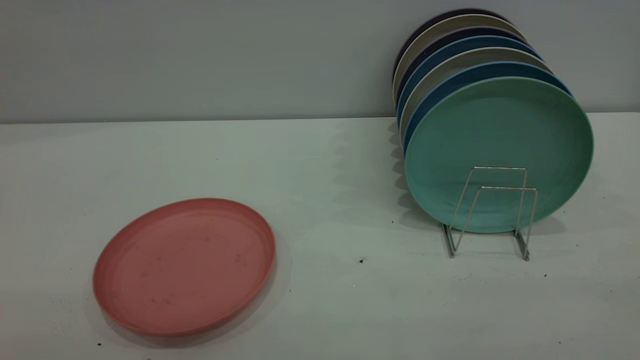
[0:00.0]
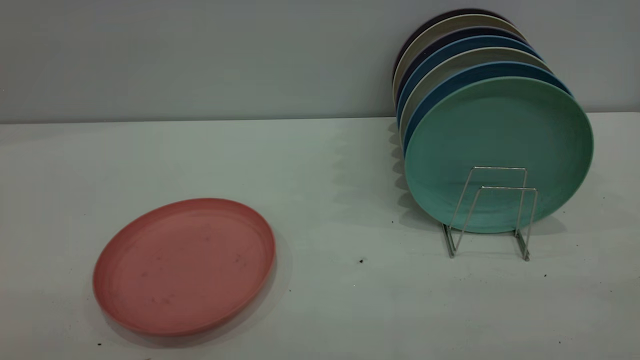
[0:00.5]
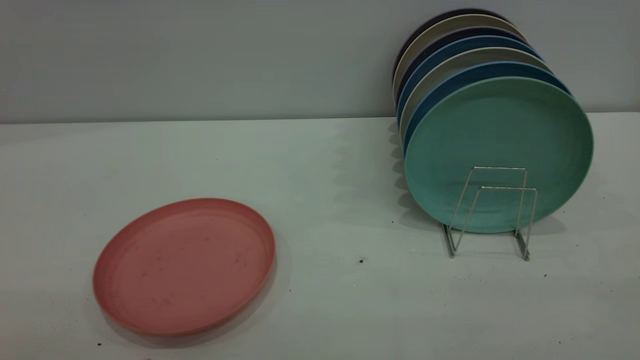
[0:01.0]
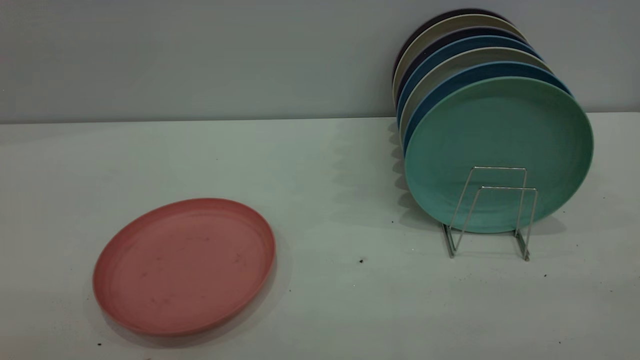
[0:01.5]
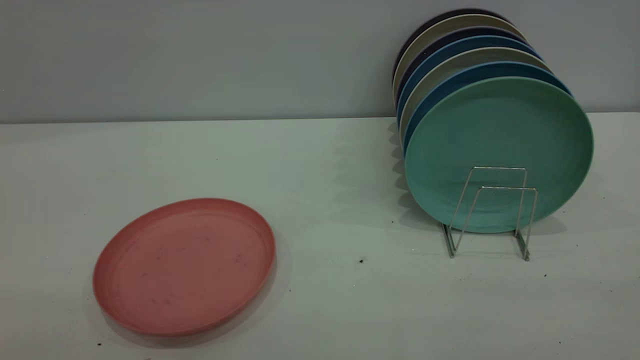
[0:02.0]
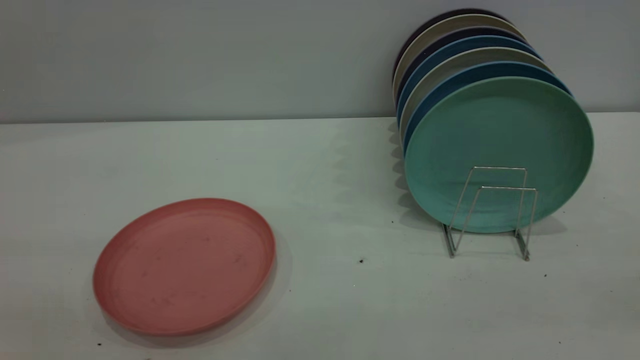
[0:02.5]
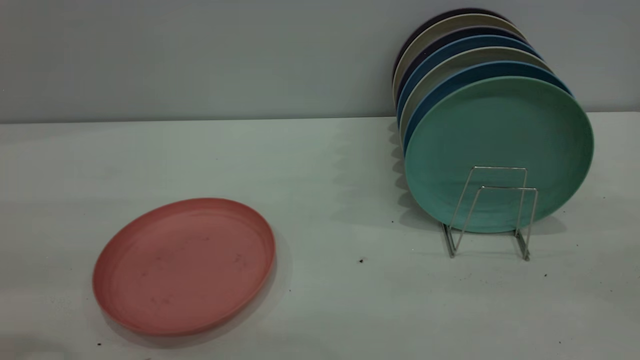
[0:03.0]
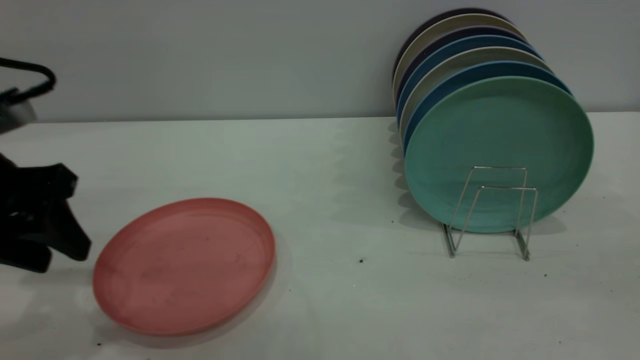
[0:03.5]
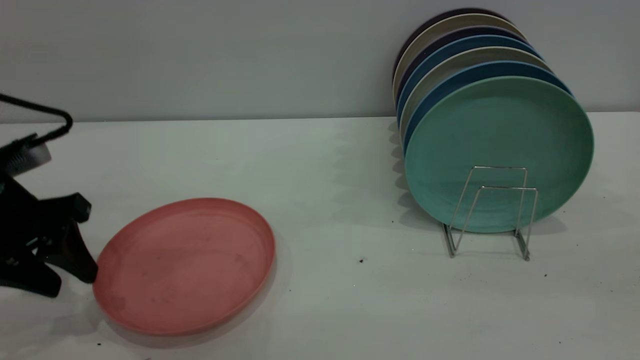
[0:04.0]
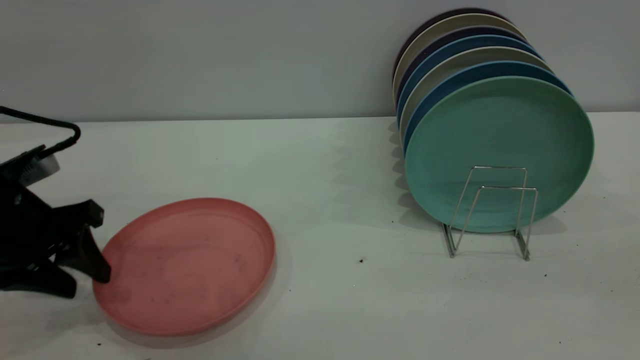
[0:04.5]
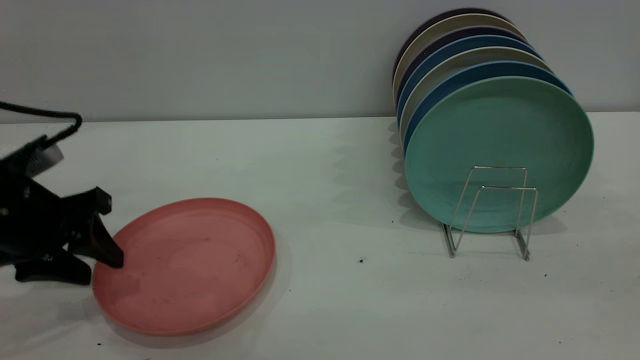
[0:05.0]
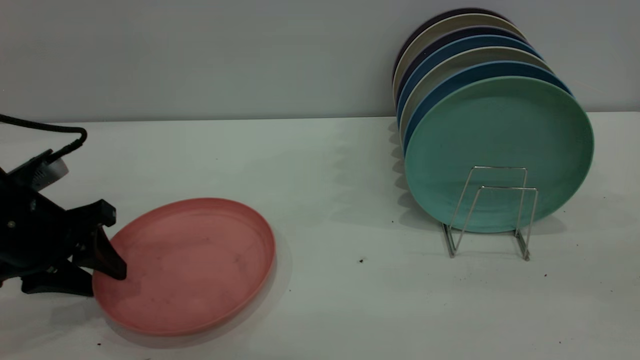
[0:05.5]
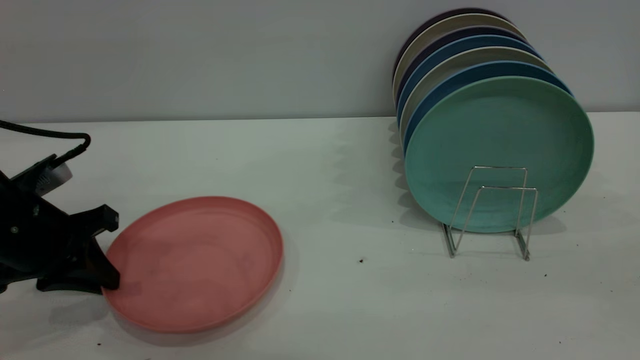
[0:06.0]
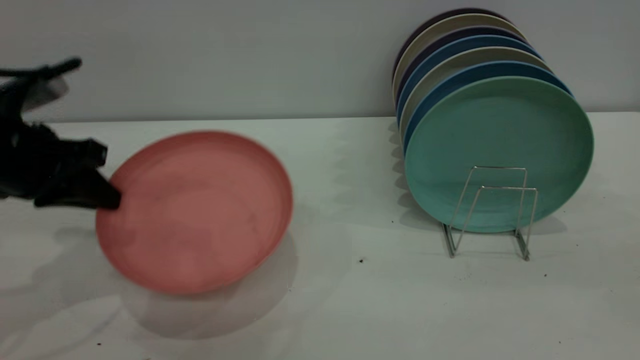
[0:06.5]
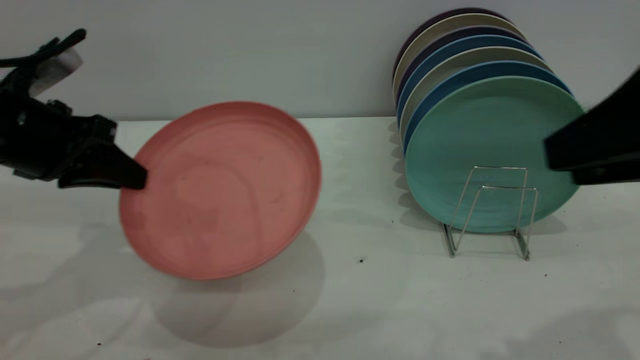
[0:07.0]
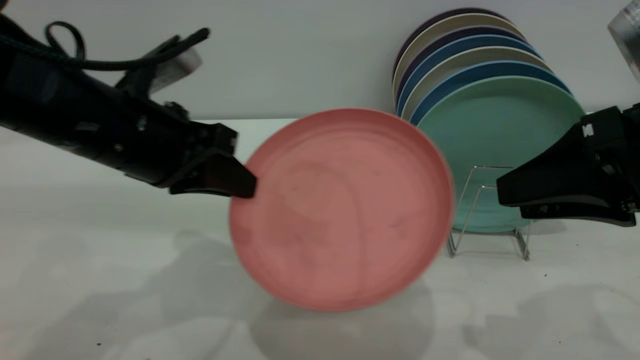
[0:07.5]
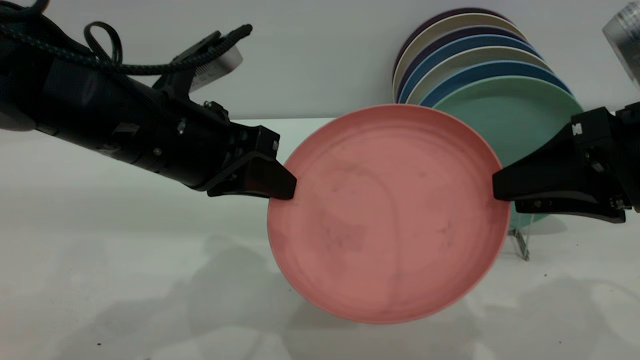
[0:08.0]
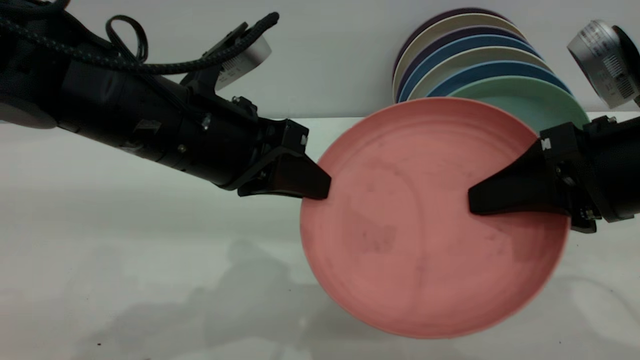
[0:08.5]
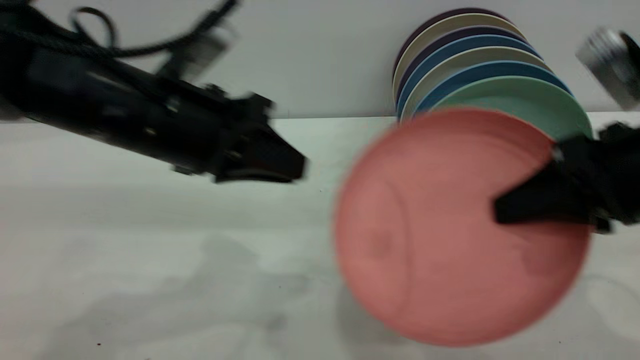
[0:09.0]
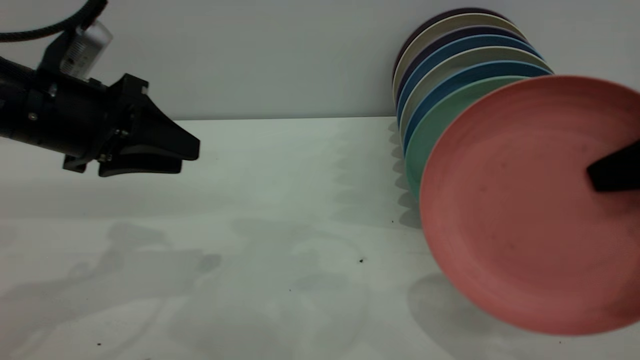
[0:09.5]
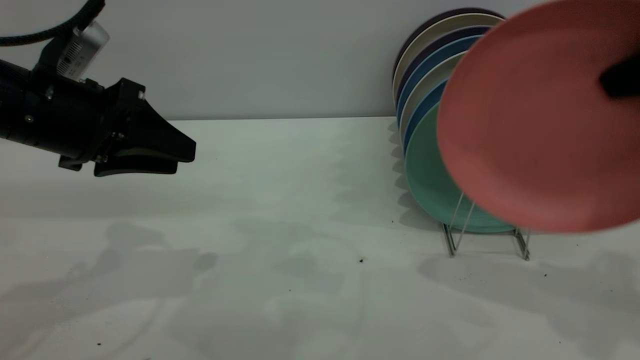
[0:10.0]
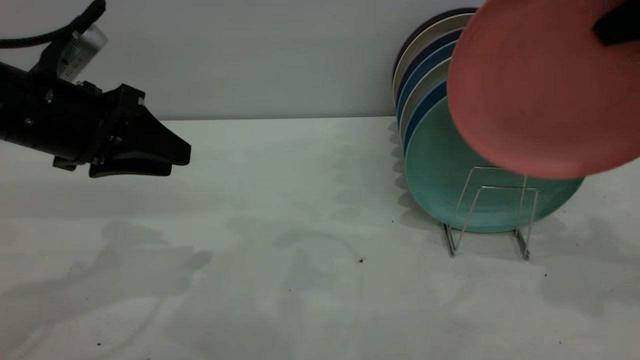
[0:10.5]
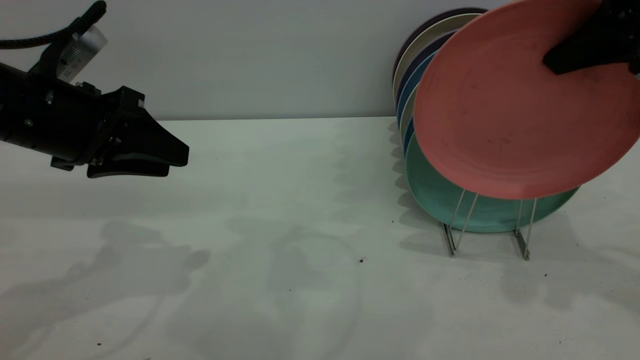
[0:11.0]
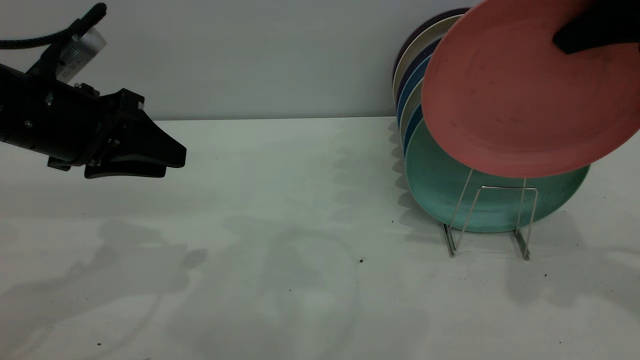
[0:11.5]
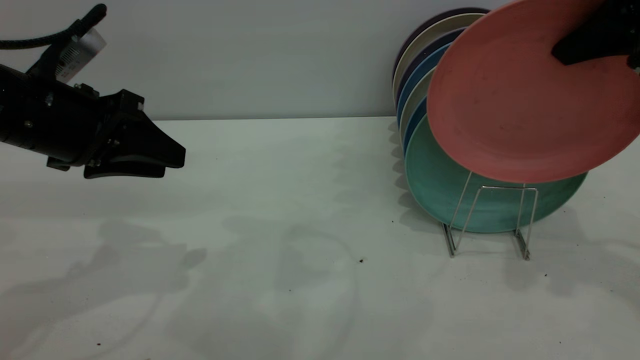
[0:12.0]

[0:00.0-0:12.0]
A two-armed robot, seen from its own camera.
Task of the whole recording: put the plate on the plate rack.
Step, 0:00.0 to 0:06.0: Pick up the plate with the left gripper.
Step, 0:06.5 to 0:09.0: Pass the plate from the left gripper to the right gripper.
0:00.0 to 0:02.0: The two grippers keep their place.
0:02.0 to 0:04.0: The left gripper goes approximately 35 cm forward and downward.
0:04.0 to 0:06.0: The left gripper closes.
0:06.0 to 0:08.0: The right gripper moves downward and forward, some 15 cm. The left gripper heads to the right and upward, covering about 20 cm.
0:08.0 to 0:10.0: The left gripper moves to the left, some 10 cm, and opens up; the right gripper shifts about 10 cm upward and to the right, and closes its fingers.
0:10.0 to 0:12.0: The right gripper shifts roughly 5 cm forward.

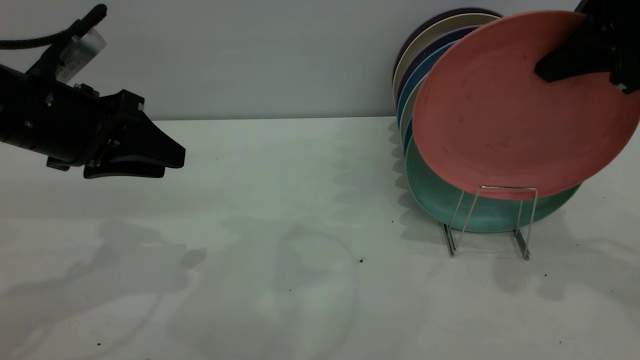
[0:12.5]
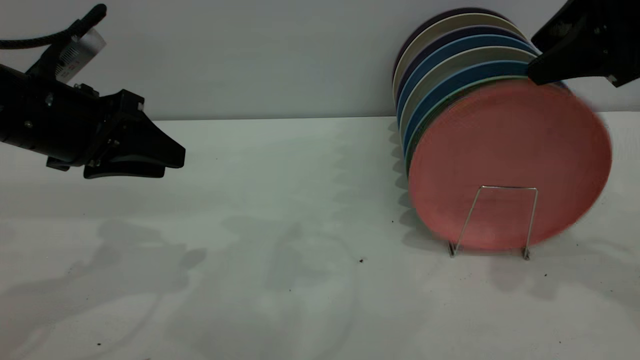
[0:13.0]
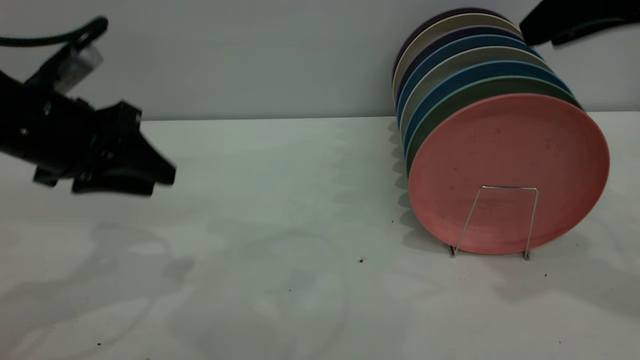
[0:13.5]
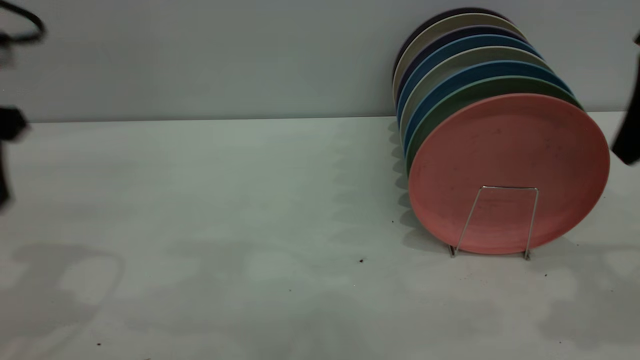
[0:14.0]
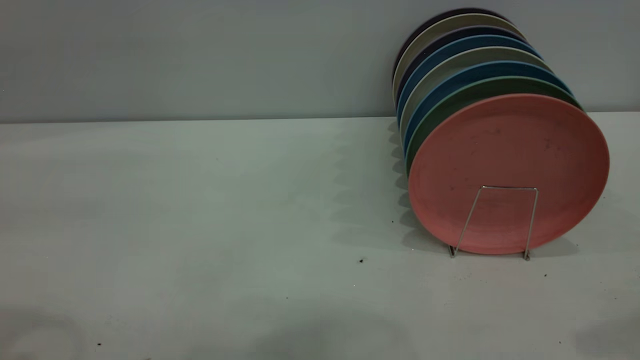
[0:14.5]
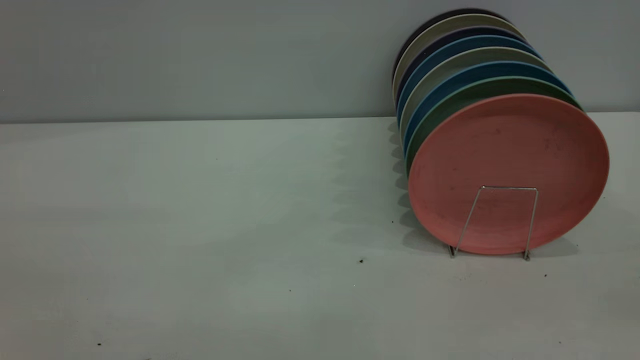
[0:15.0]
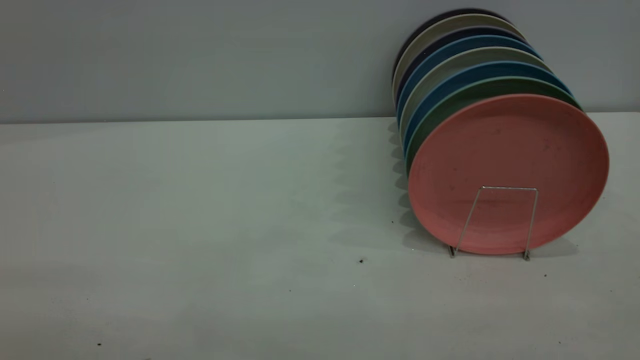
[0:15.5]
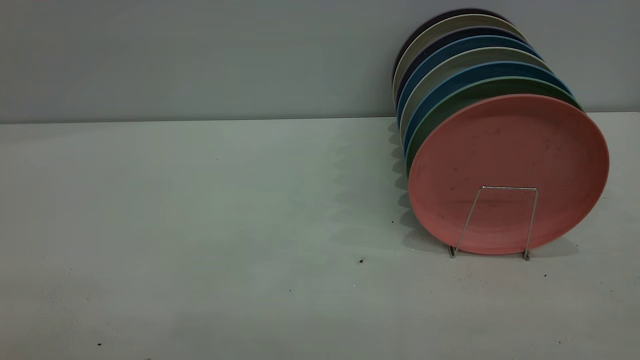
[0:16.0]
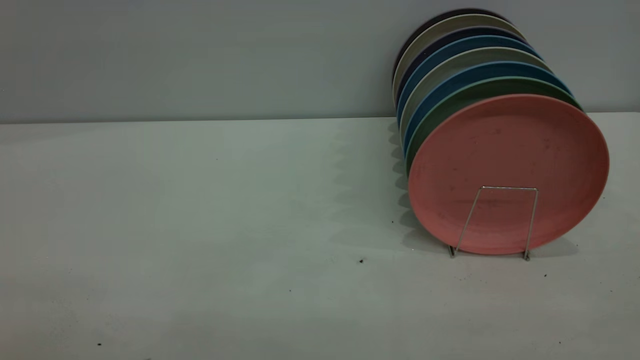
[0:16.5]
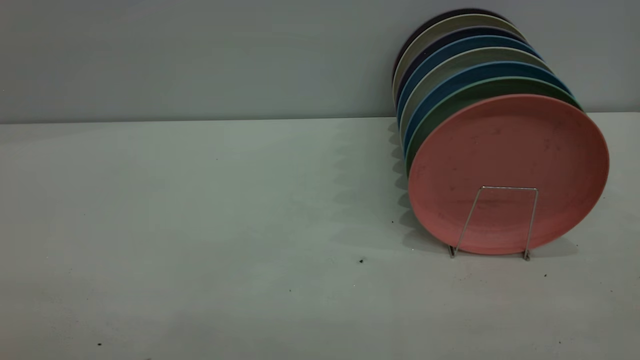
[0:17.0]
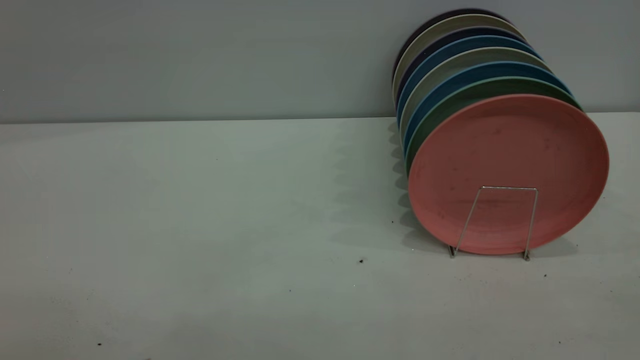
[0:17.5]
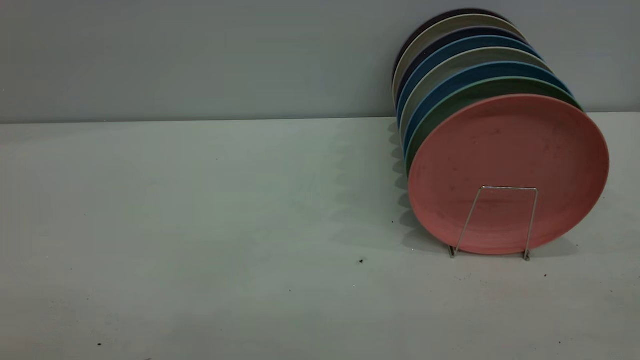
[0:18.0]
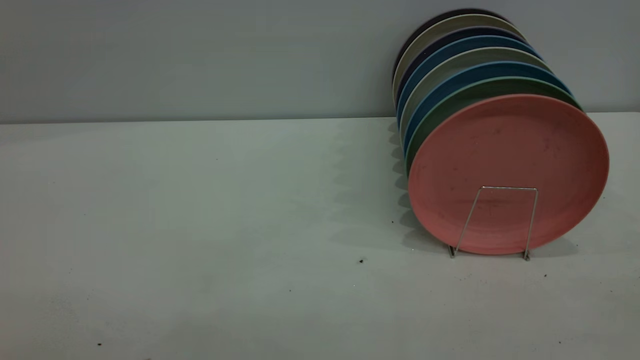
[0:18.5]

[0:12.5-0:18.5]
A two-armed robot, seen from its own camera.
Task of the whole recording: put the plate on the plate rack.
0:12.5 to 0:14.5: The left gripper heads upward and backward, covering some 25 cm; the right gripper goes roughly 20 cm backward and upward, and opens its fingers.
